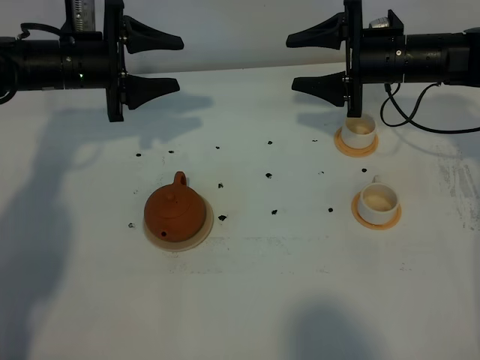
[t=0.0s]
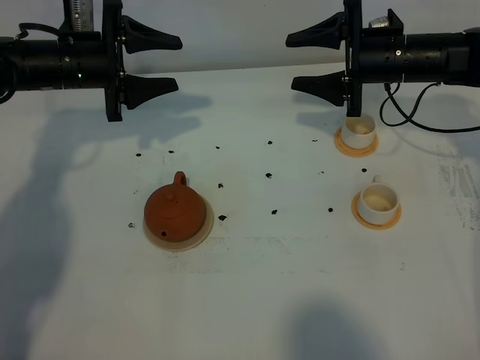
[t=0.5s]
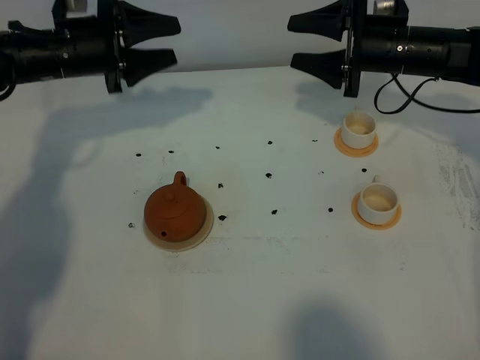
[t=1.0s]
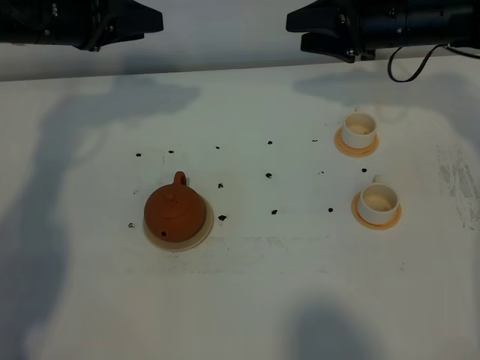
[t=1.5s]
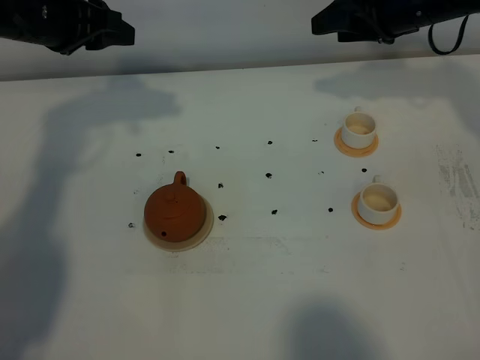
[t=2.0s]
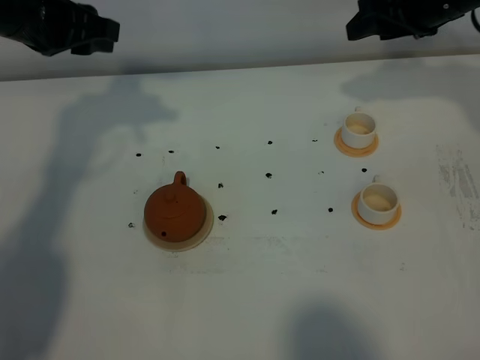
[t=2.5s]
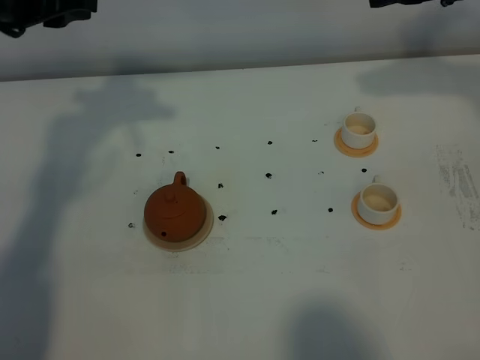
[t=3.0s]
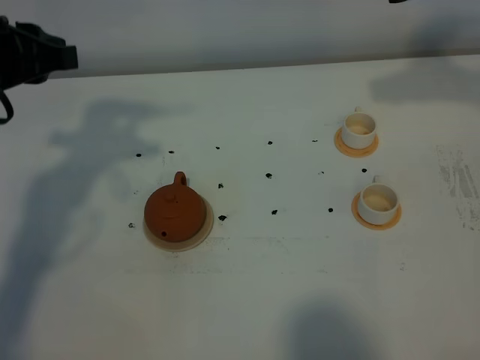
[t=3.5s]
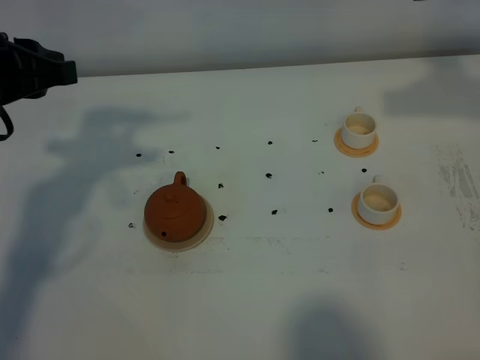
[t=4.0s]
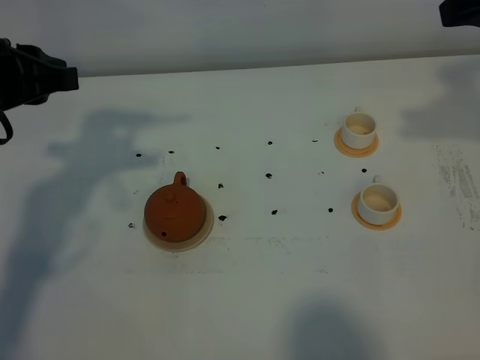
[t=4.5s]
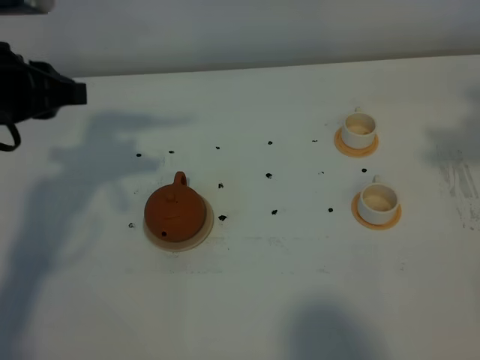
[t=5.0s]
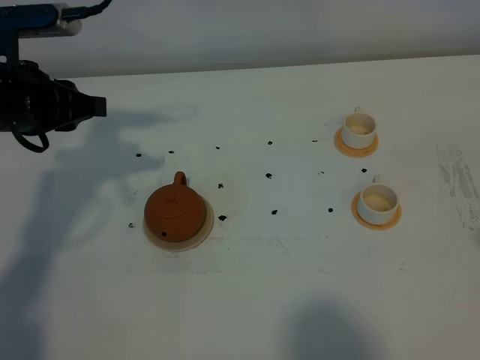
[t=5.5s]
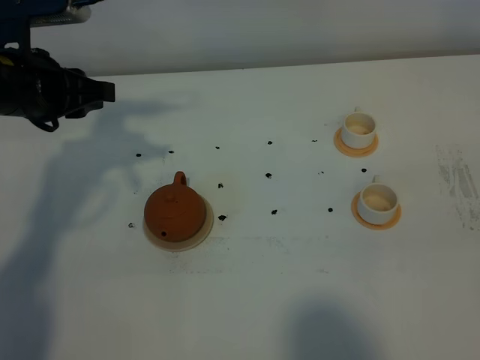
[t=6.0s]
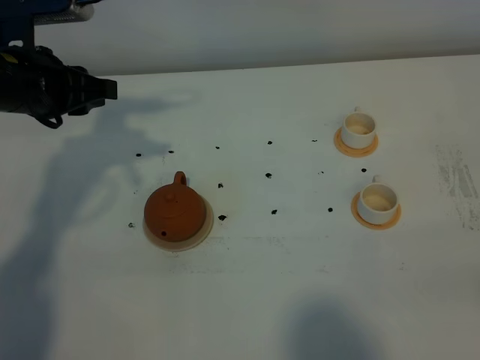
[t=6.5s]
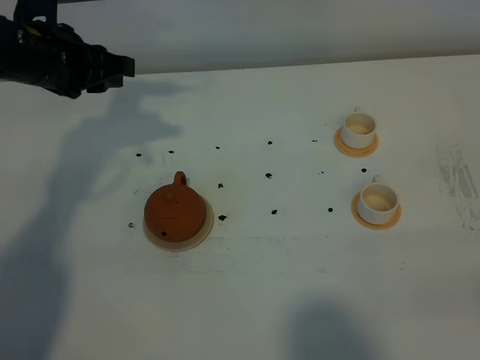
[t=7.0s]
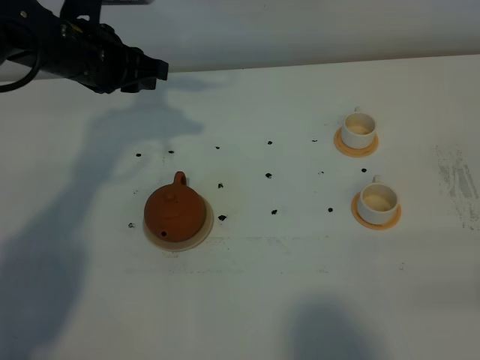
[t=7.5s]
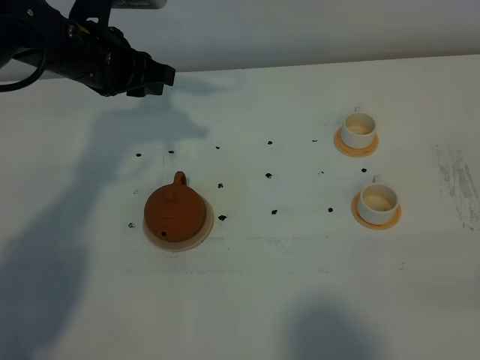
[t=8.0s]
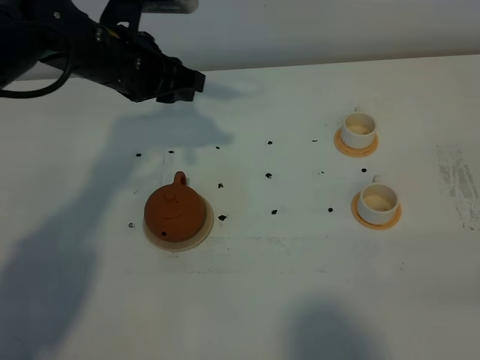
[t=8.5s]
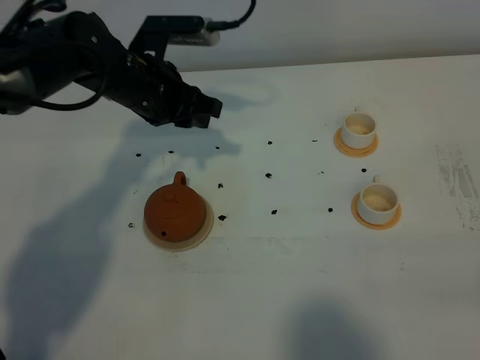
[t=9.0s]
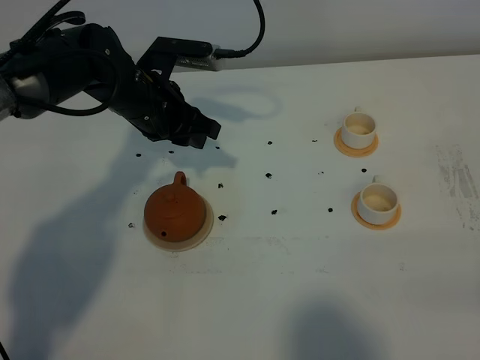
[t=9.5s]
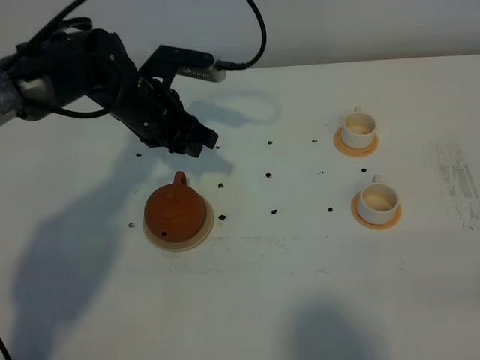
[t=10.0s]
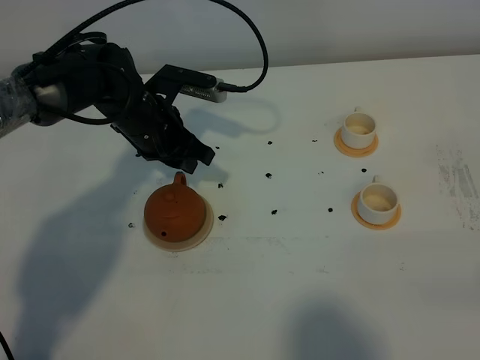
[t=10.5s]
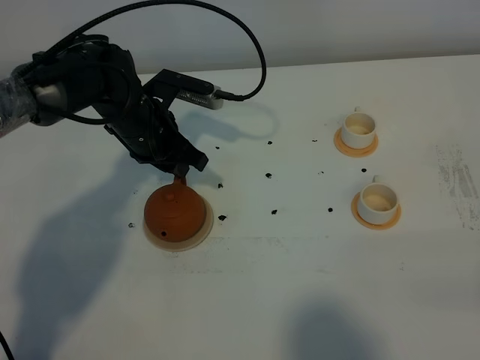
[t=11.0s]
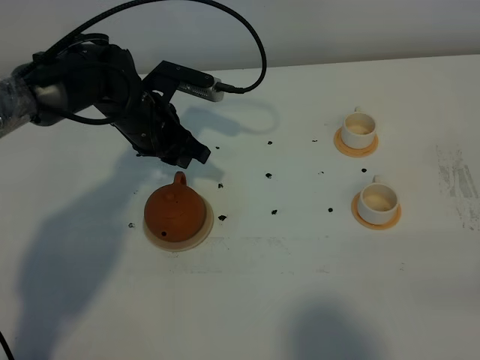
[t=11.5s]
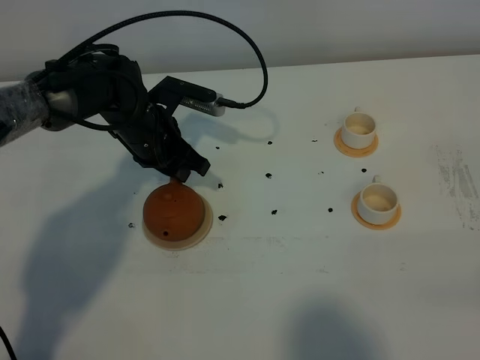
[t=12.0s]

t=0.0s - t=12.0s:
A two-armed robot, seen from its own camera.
Task of the whole recording: grasp the brown teapot and pour the tea into the two white teacups one by one, put the brown teapot back in its original place.
t=0.0s - t=2.0s: Both grippers move upward, about 10 cm.
t=2.0s - t=4.0s: The left gripper shifts approximately 15 cm backward; the right gripper moves upward and backward, roughly 20 cm.
t=4.0s - t=6.0s: The right gripper travels backward by about 30 cm. Meanwhile the left gripper travels downward and forward by some 10 cm.
t=6.0s - t=8.0s: The left gripper goes some 10 cm forward and to the right.
t=8.0s - t=10.0s: The left gripper heads downward, covering roughly 10 cm.
t=10.0s - t=12.0s: The grippers make only small movements.

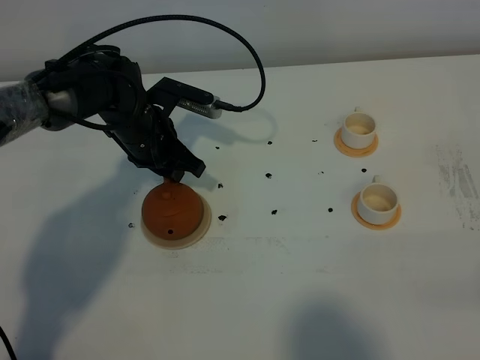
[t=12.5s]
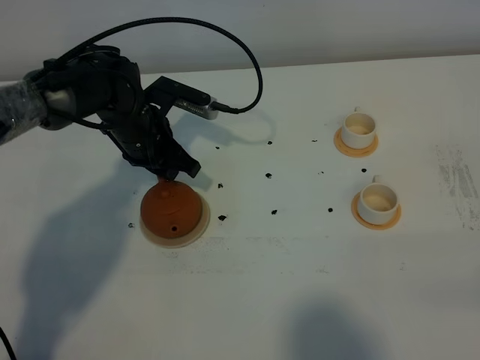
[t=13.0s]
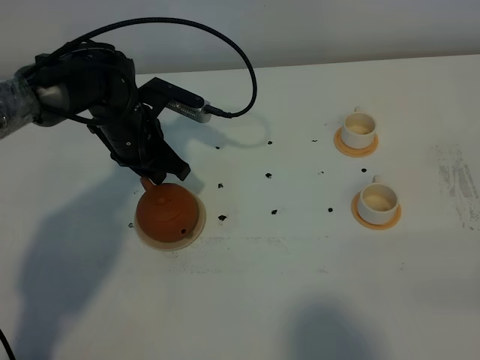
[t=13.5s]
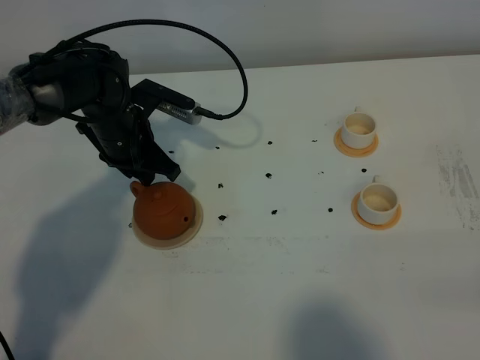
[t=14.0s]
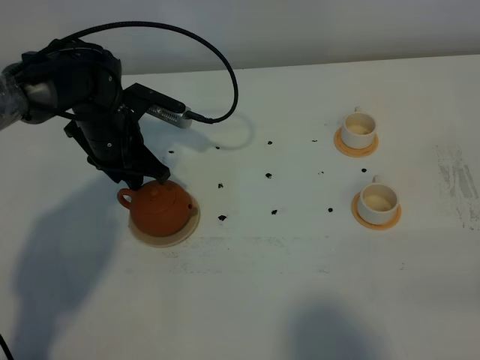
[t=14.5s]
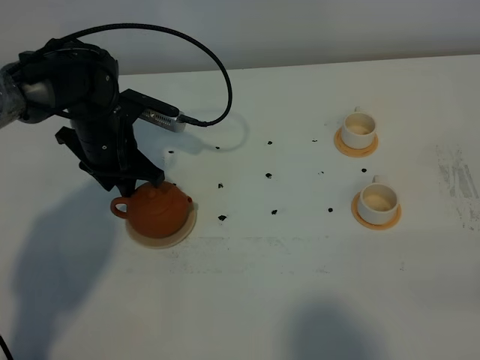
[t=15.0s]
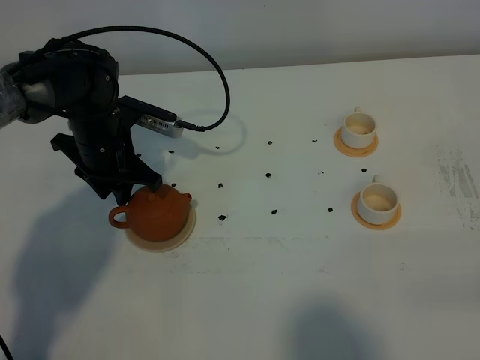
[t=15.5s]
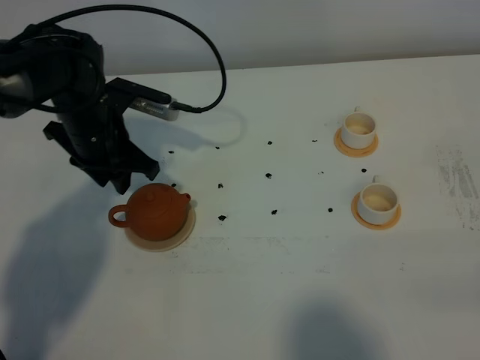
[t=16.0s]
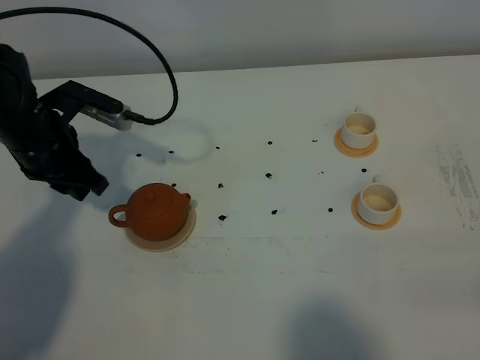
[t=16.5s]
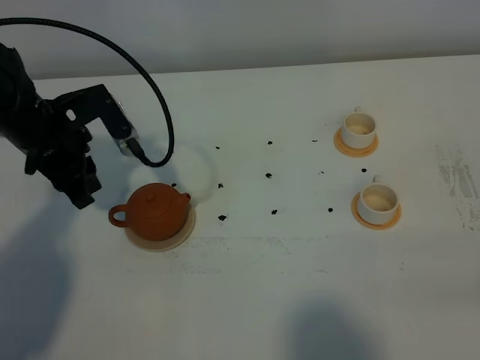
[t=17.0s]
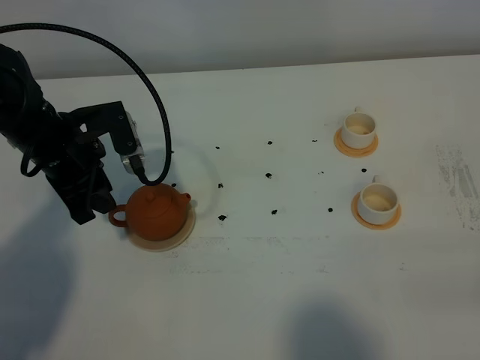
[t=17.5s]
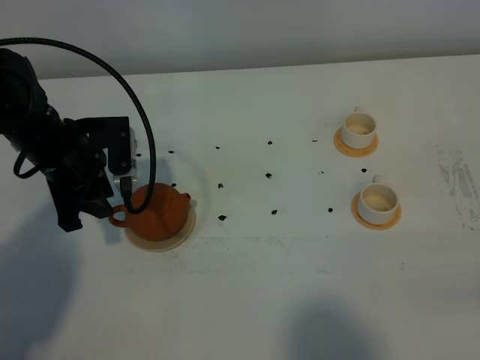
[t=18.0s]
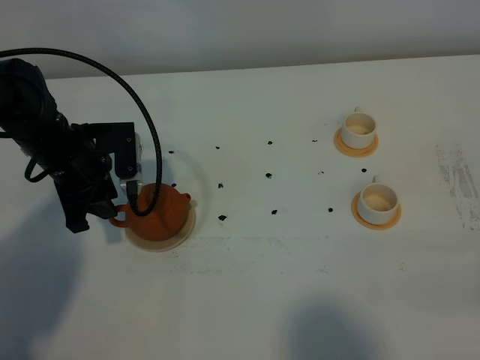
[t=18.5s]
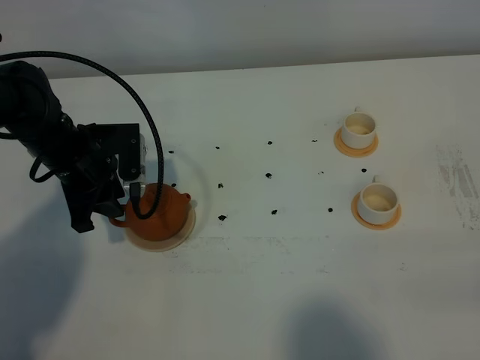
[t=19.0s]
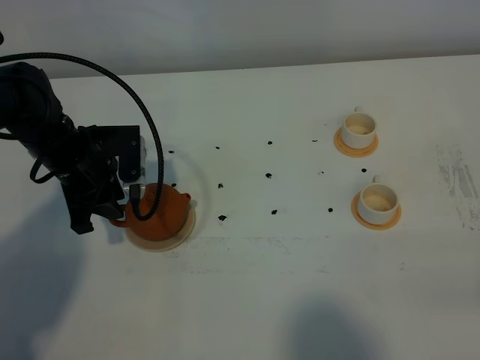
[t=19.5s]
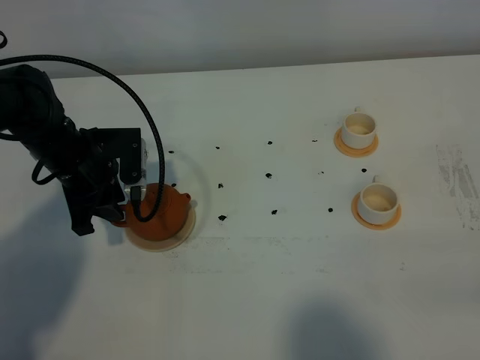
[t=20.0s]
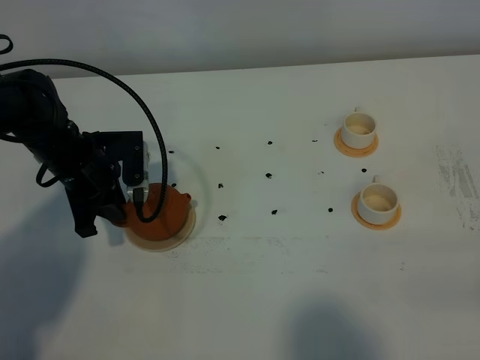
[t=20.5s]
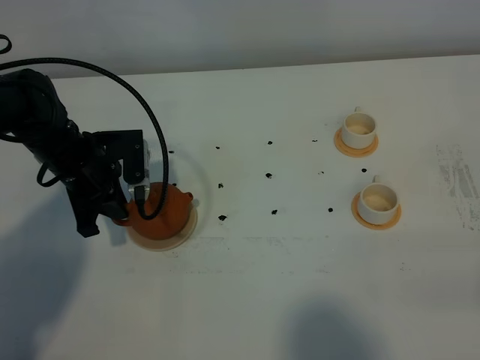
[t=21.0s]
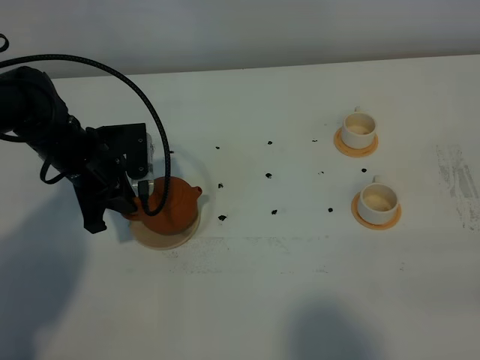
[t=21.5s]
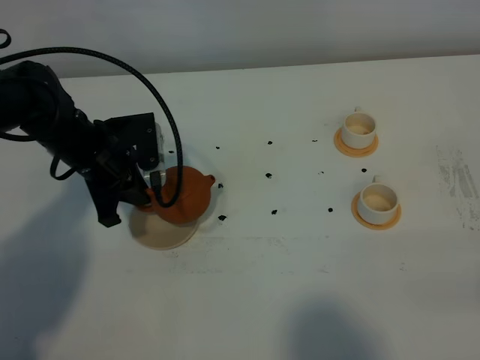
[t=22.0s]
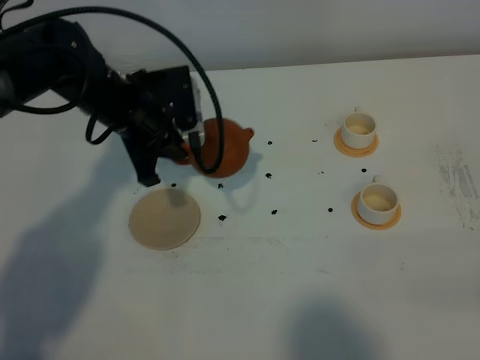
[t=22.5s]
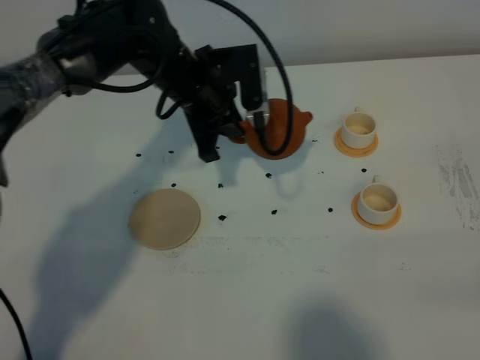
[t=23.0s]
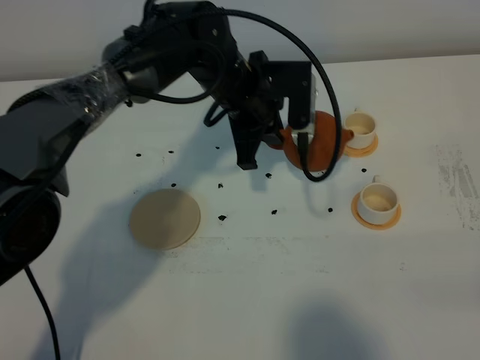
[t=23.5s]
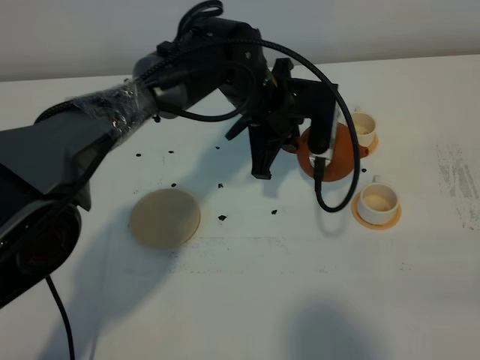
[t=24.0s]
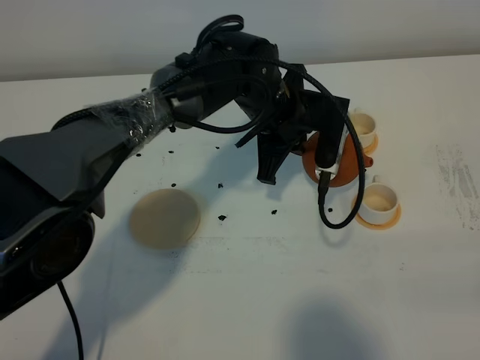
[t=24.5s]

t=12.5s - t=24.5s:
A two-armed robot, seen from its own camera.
Task of the whole recording: grasp the brown teapot and pour the tea into the two white teacups one by one, put the brown teapot back in its original place.
Step, t=12.5s - t=22.0s: Pick up the teapot with the left gripper.
t=12.5s - t=14.5s: The grippers stay close to where they were, moving slightly.
t=14.5s - t=16.5s: The left gripper is displaced to the left, upward and backward by approximately 10 cm.
t=18.5s - t=20.5s: The left gripper closes up.
t=20.5s - t=22.5s: The left gripper is displaced to the right and upward by some 10 cm.
t=22.5s - t=24.5s: The left gripper travels to the right by some 20 cm.

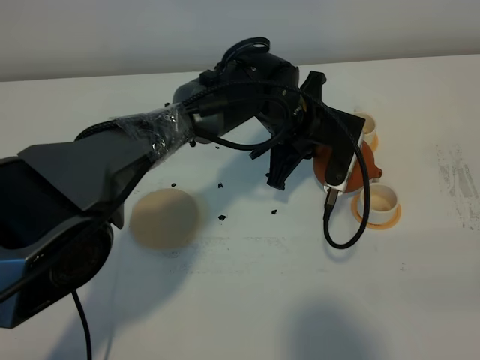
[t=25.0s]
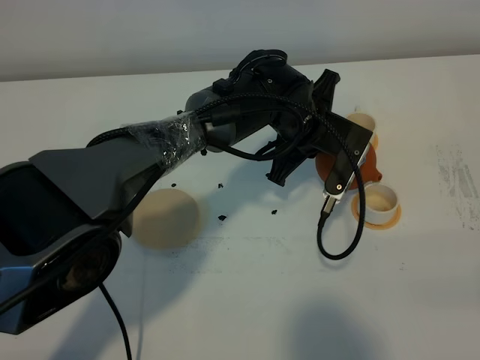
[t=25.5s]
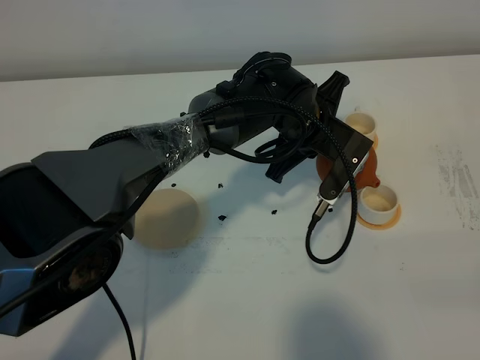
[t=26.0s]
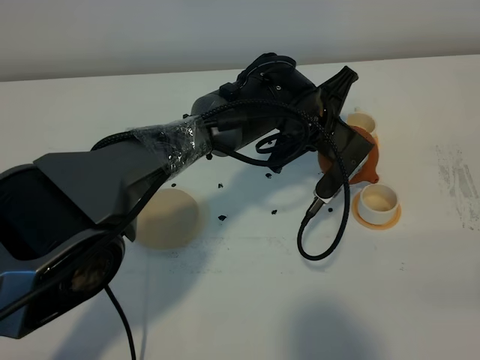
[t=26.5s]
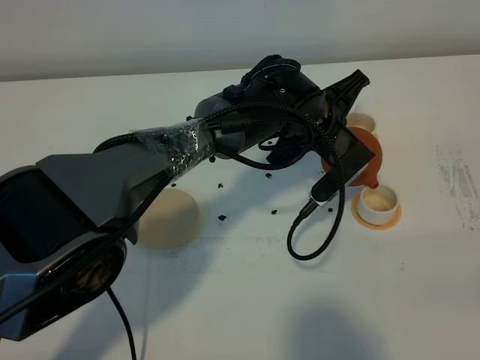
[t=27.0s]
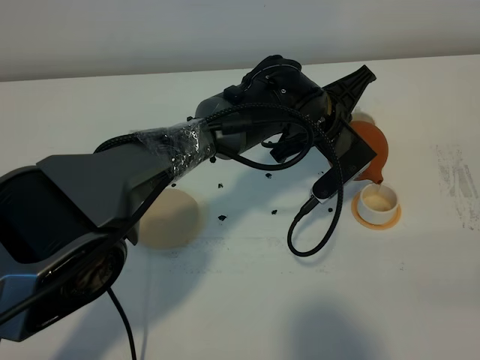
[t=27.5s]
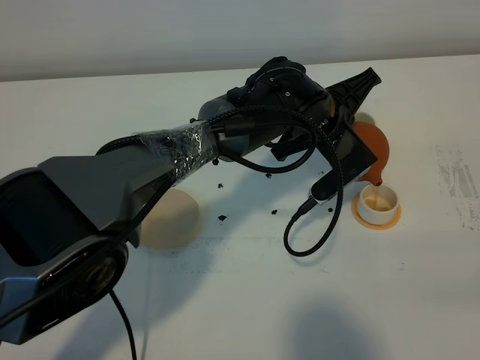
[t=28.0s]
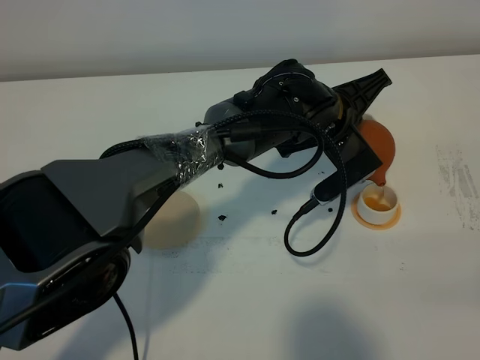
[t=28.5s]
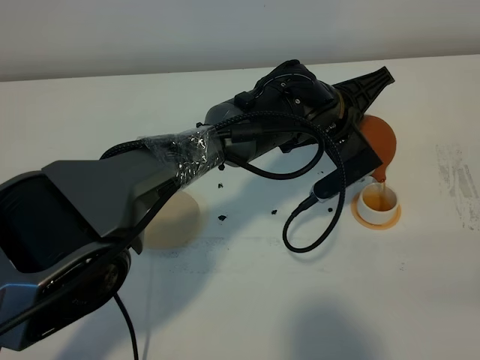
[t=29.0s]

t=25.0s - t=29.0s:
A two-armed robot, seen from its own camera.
Task of the whole recording: grasp the brown teapot and pour the tea into the two white teacups one by one, put the brown teapot back in its original place.
t=27.0s - t=29.0s: The grippers make only small movements.
